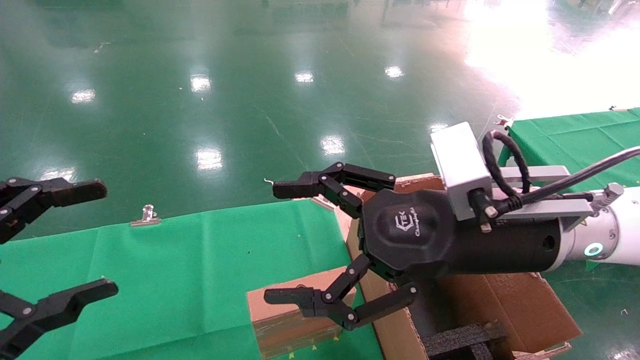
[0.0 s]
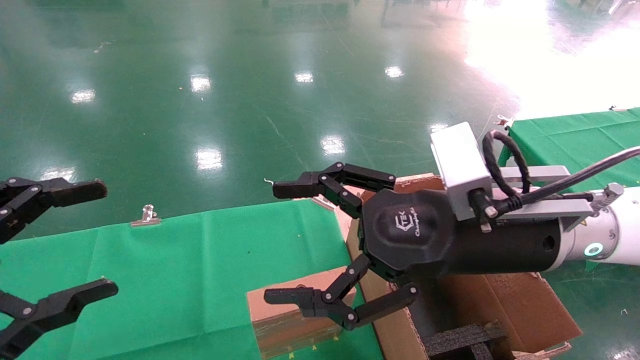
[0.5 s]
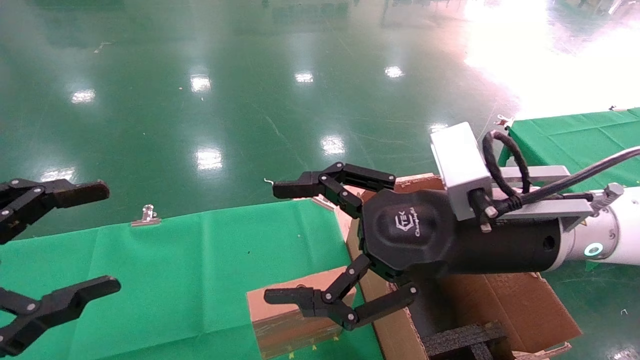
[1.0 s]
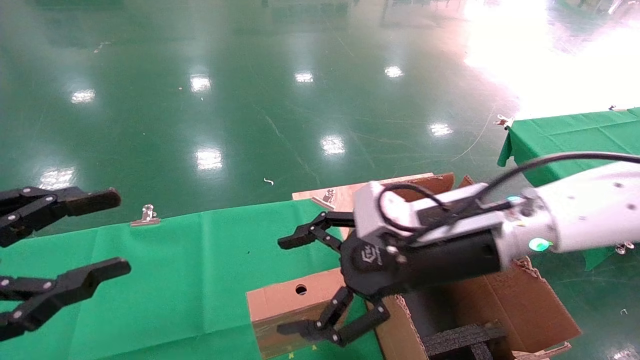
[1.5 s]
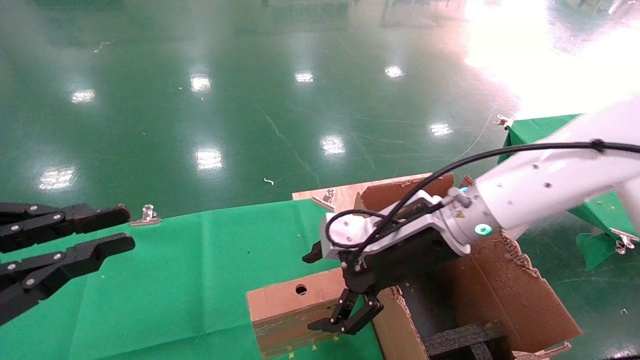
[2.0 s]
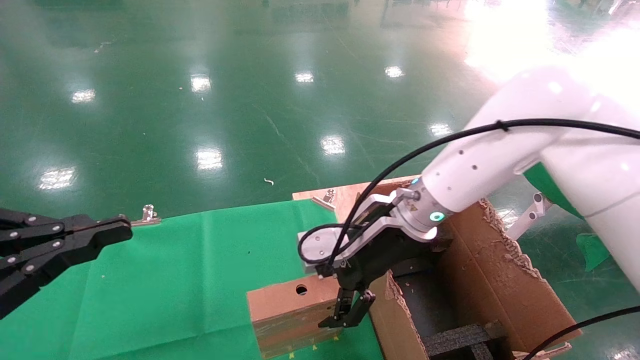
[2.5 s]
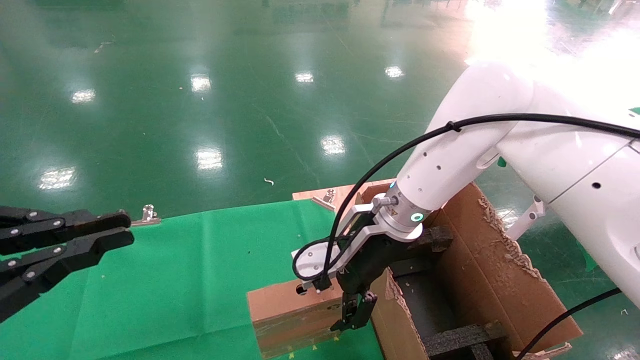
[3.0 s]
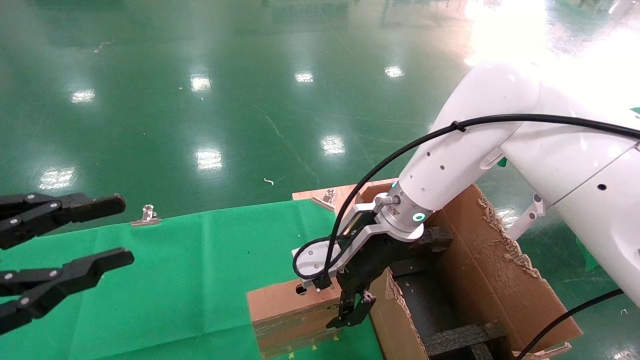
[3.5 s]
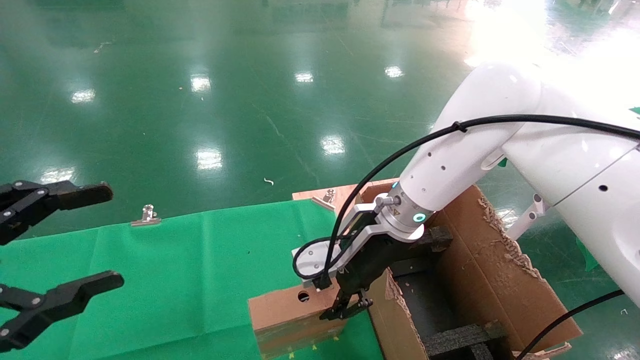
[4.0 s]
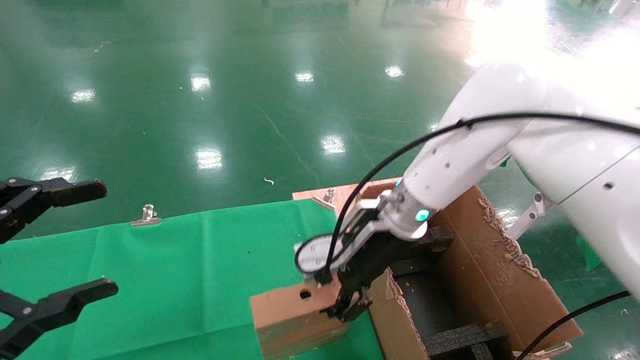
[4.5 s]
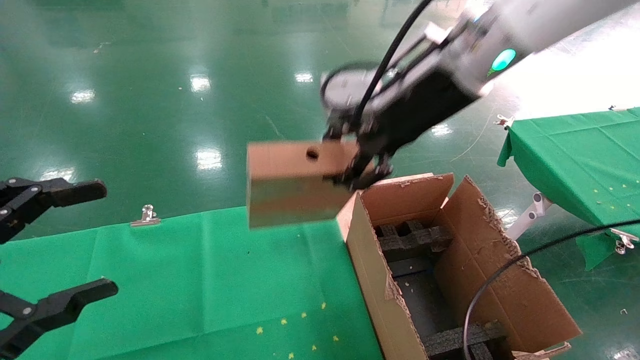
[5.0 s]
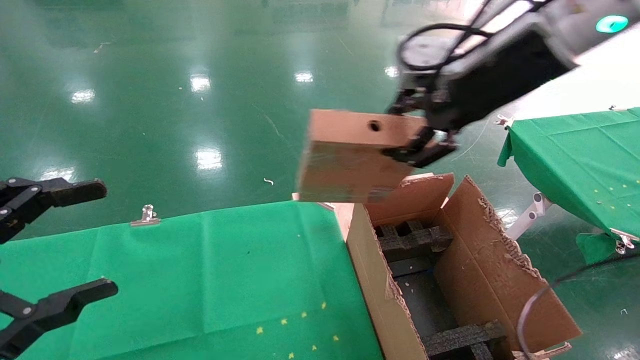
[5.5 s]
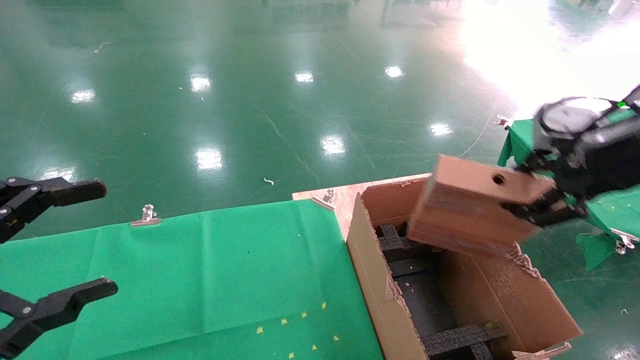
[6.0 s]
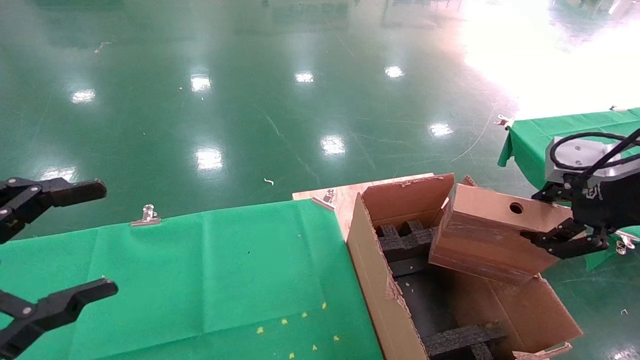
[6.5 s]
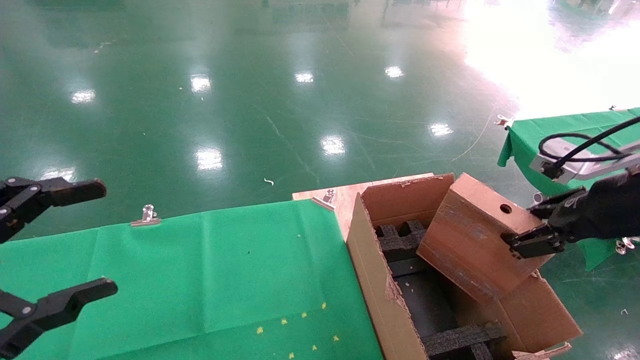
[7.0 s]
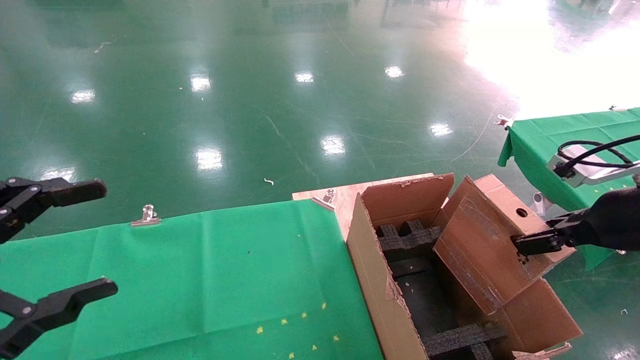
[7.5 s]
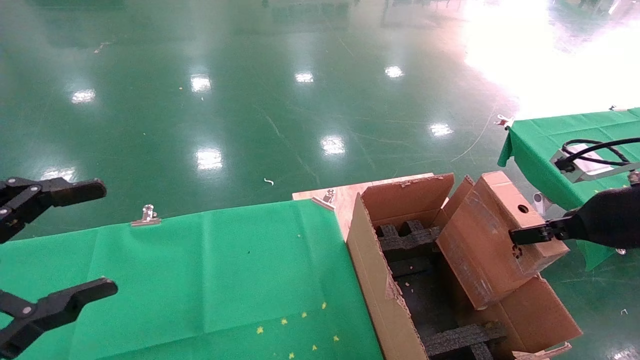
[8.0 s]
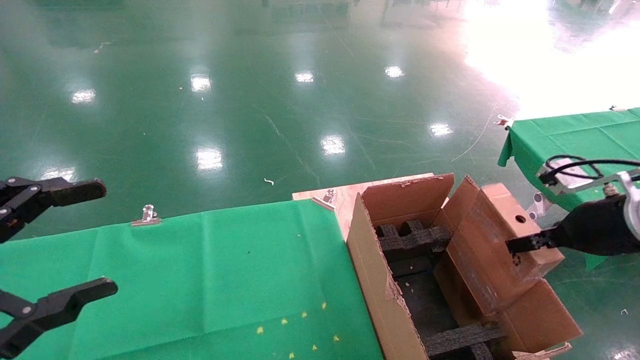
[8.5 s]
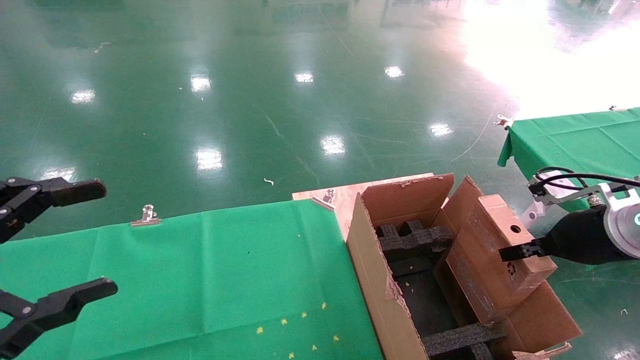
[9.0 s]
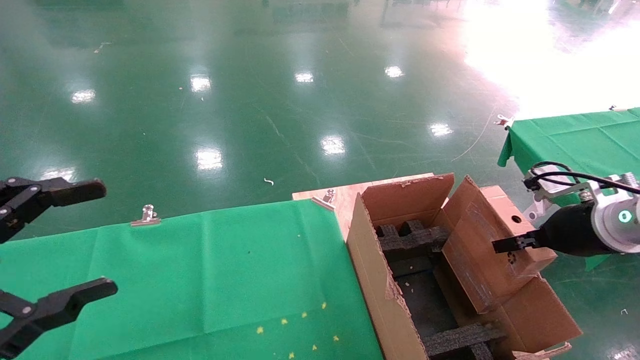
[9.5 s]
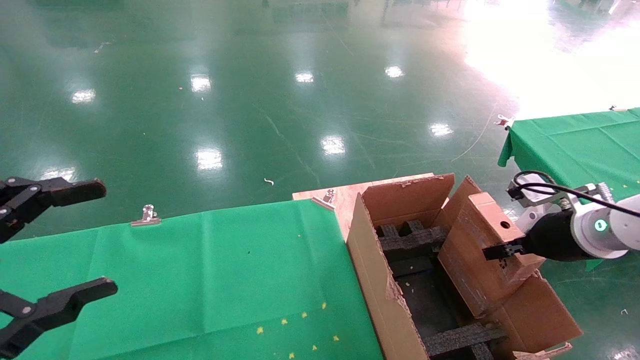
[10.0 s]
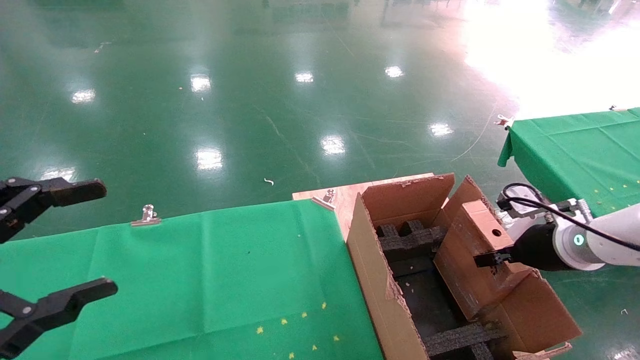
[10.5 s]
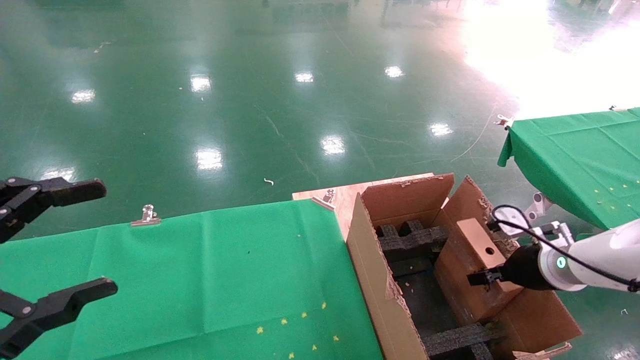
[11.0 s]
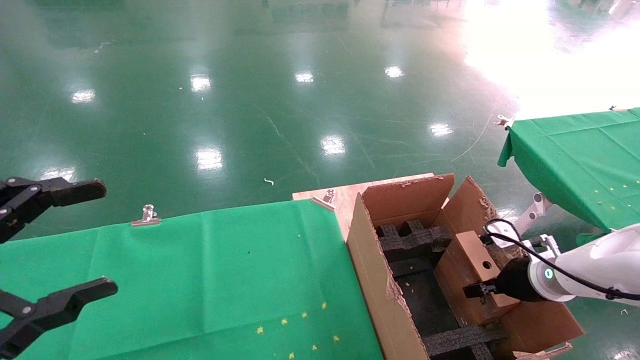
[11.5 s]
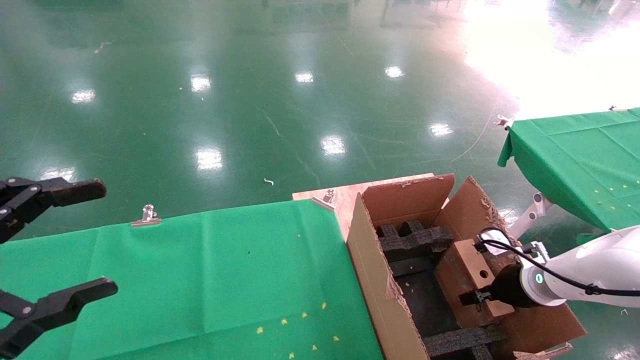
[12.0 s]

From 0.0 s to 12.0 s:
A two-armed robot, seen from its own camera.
Task of the whole recording: using a robotic arm to pick up a cardboard box and palace it the carton.
Step, from 1.5 s to 4.0 s: Pick up the mouse and the power cord paper box.
From 0.0 s to 2.0 s: The left gripper closes. Meanwhile the right gripper shifts about 10 cm forward.
From 2.0 s to 4.0 s: The right gripper moves about 5 cm, and closes its fingers. Meanwhile the left gripper opens up.
From 4.0 s to 6.0 s: The right gripper travels to the right, upward and backward by approximately 30 cm.
From 6.0 s to 8.0 s: The right gripper heads downward, covering approximately 10 cm.
From 8.0 s to 10.0 s: The right gripper moves downward and forward, about 10 cm.
From 10.0 s to 12.0 s: The right gripper goes some 10 cm downward.

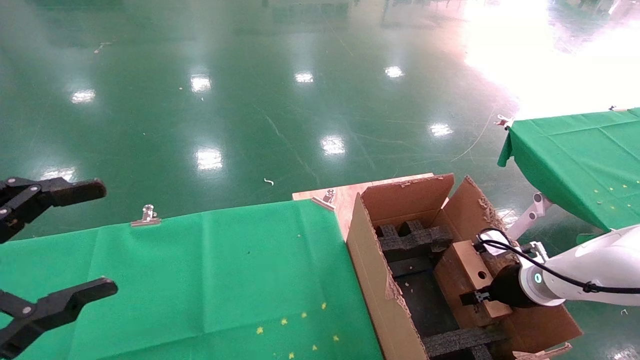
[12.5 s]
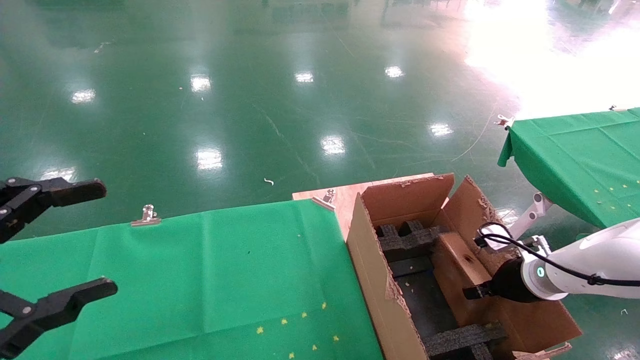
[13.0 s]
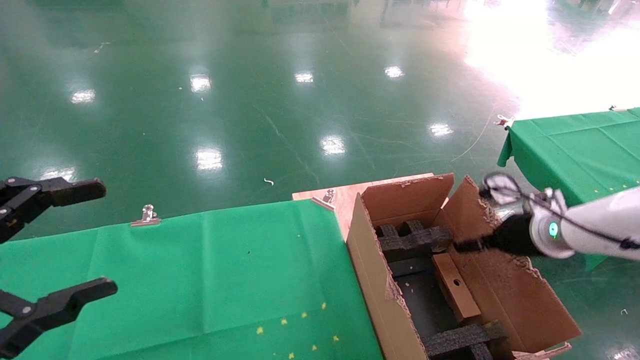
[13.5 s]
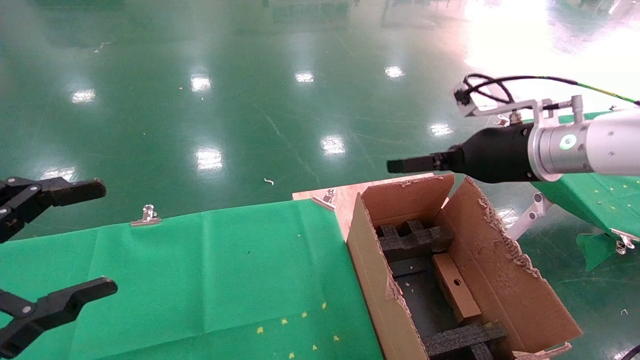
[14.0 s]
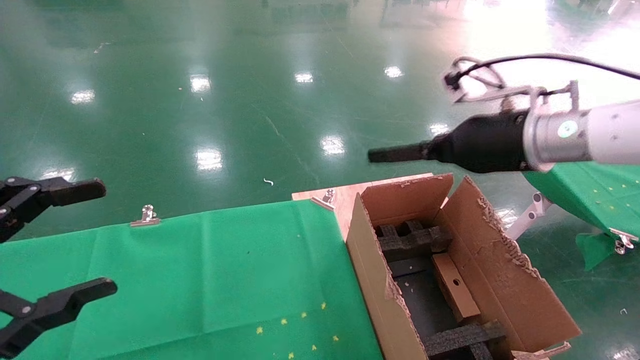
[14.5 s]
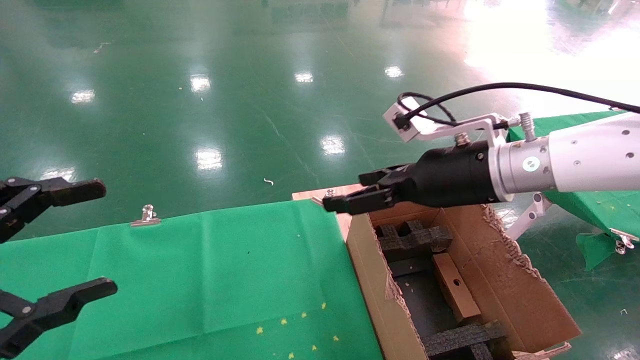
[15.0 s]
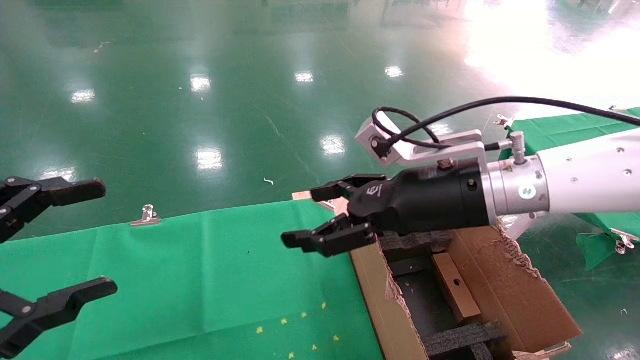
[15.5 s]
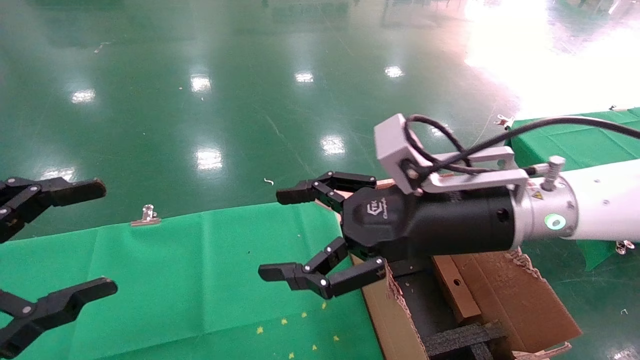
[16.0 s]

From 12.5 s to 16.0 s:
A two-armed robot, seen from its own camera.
Task of the whole recording: using a robotic arm to pick up a cardboard box and palace it the carton.
From 12.5 s to 14.5 s: The right gripper shifts about 25 cm upward and to the left, and opens.
From 14.5 s to 16.0 s: The right gripper heads to the left and backward, covering approximately 10 cm.

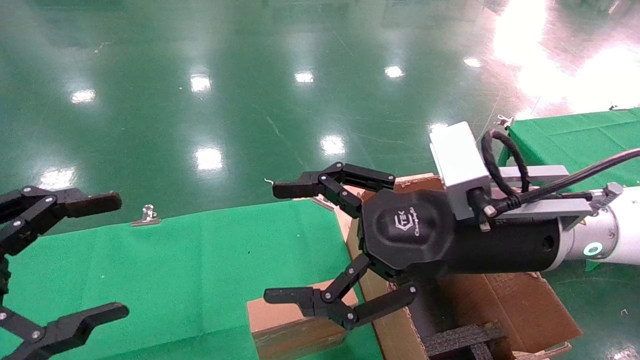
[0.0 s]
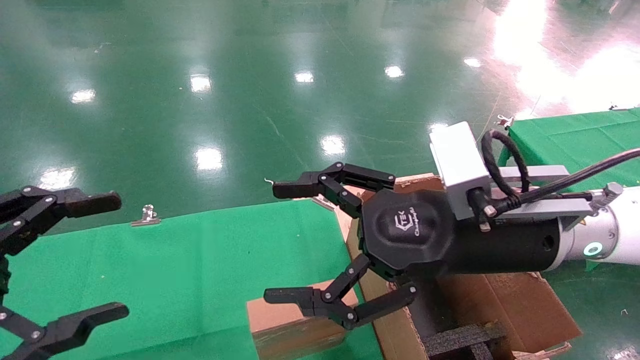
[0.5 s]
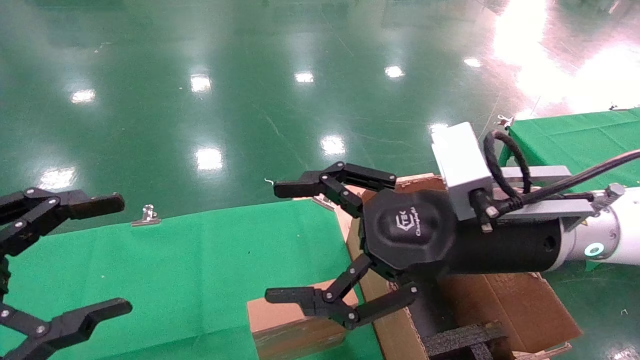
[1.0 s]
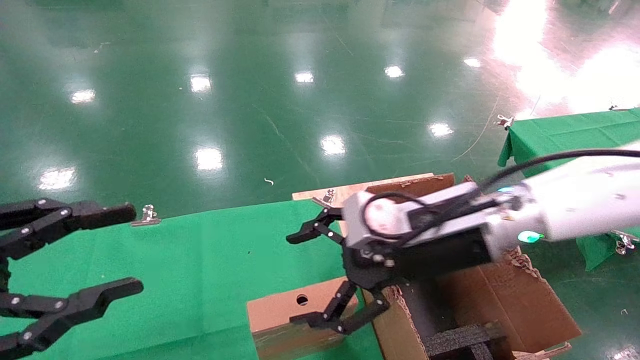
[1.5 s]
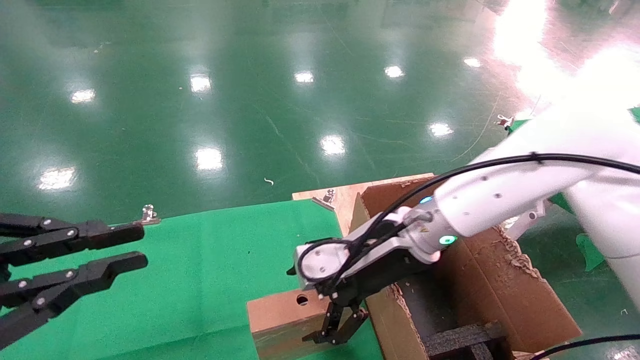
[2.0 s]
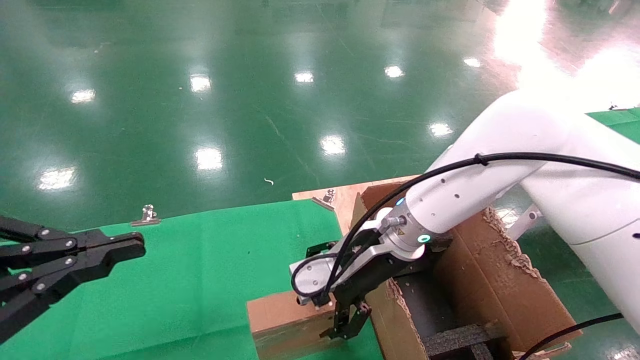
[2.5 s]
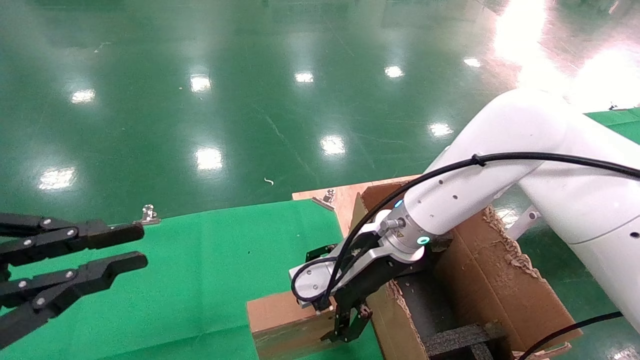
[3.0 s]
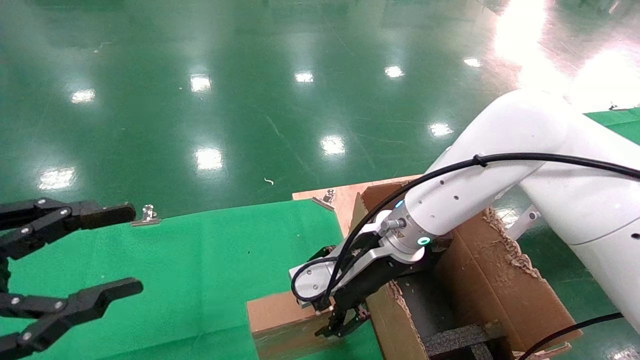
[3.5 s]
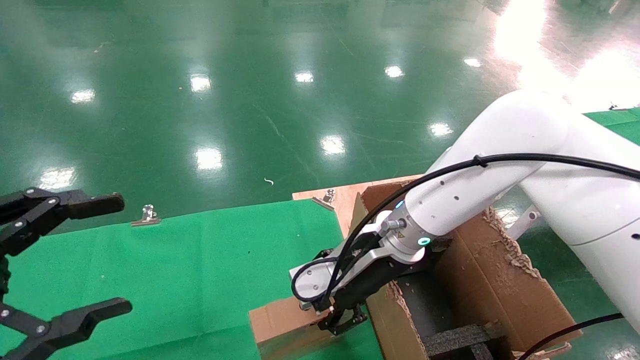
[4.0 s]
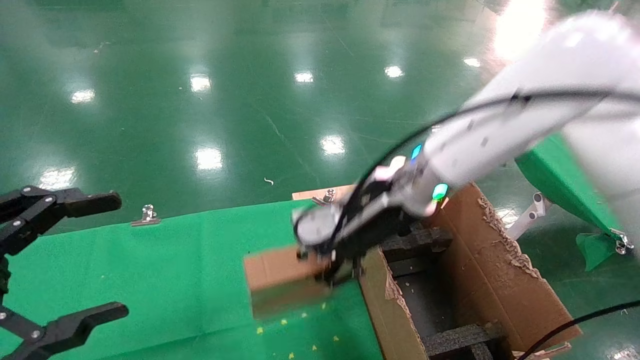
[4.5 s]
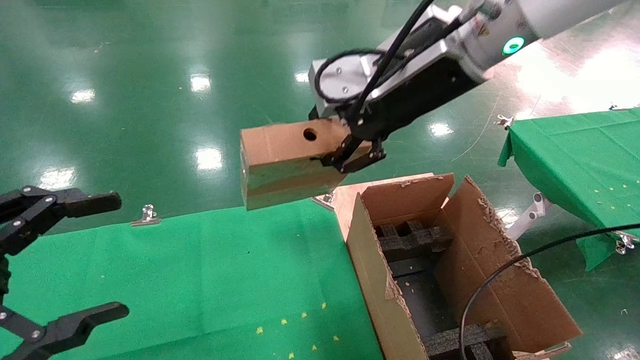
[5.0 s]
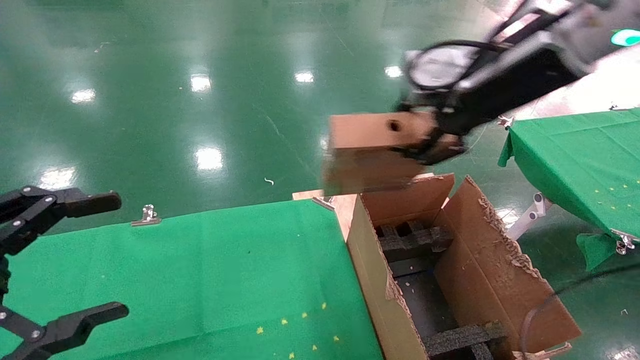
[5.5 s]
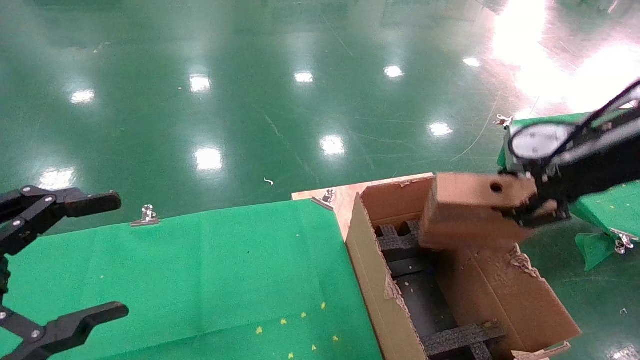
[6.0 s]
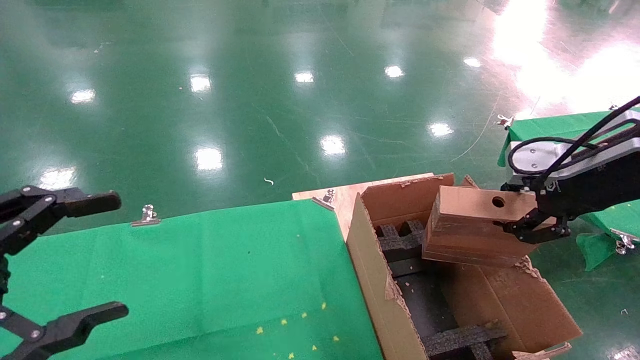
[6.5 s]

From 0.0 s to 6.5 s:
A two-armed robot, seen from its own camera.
Task of the whole recording: using a robotic arm to pick up a cardboard box and palace it the carton.
Step, from 1.5 s to 3.5 s: Pick up the mouse and the power cord paper box.
From 0.0 s to 2.0 s: The left gripper closes; the right gripper shifts some 15 cm forward, to the left and downward.
From 2.0 s to 4.5 s: The left gripper opens up. Meanwhile the right gripper goes roughly 5 cm upward, and closes up.
From 4.5 s to 6.5 s: The right gripper goes some 25 cm to the right and backward.
